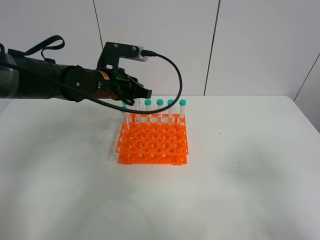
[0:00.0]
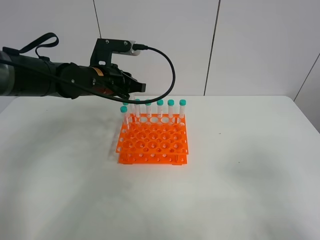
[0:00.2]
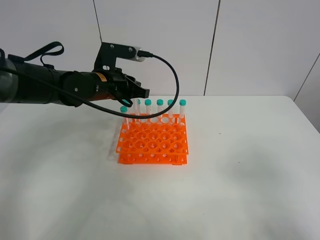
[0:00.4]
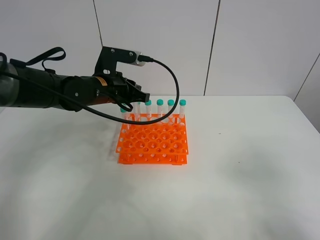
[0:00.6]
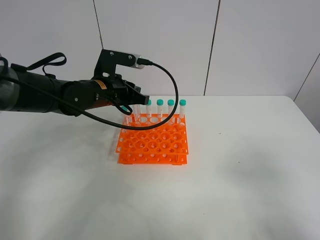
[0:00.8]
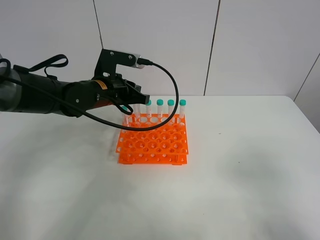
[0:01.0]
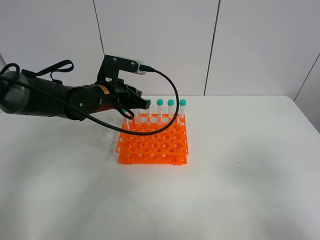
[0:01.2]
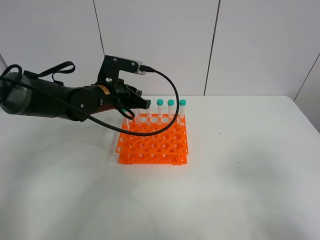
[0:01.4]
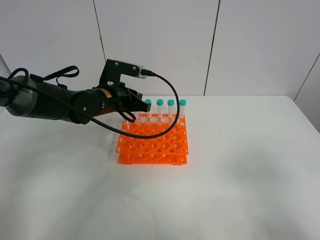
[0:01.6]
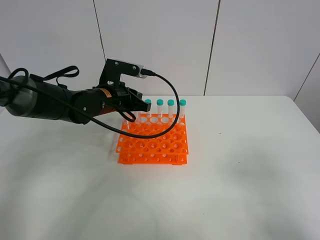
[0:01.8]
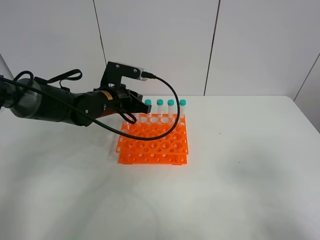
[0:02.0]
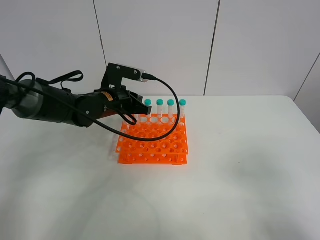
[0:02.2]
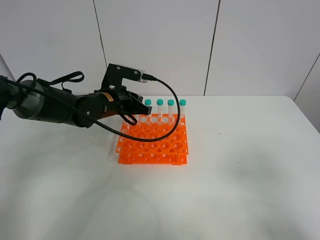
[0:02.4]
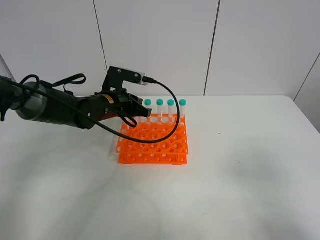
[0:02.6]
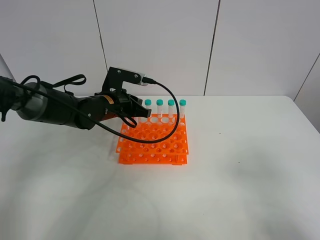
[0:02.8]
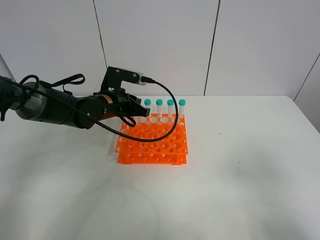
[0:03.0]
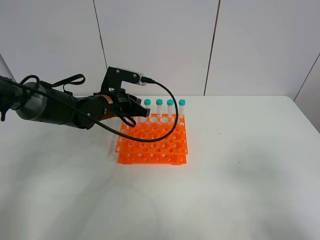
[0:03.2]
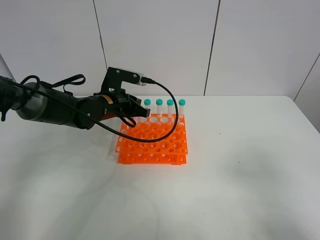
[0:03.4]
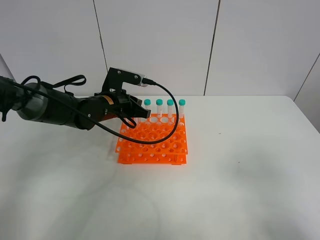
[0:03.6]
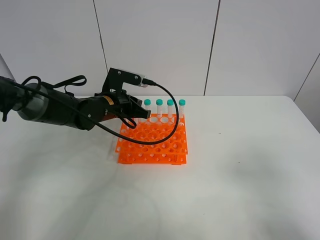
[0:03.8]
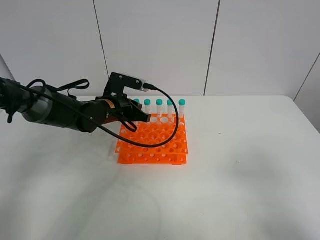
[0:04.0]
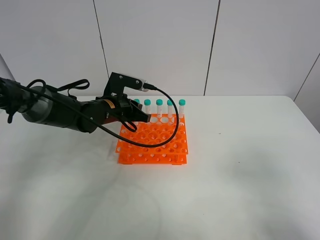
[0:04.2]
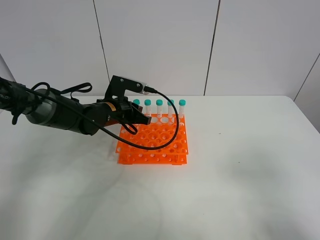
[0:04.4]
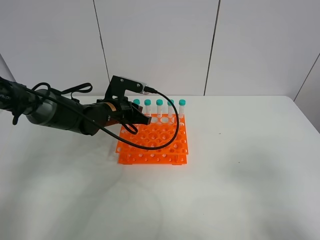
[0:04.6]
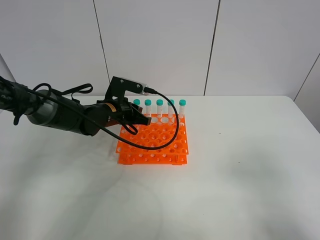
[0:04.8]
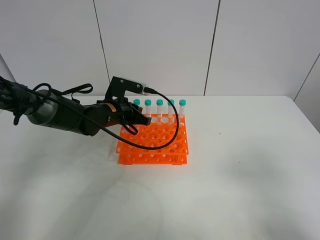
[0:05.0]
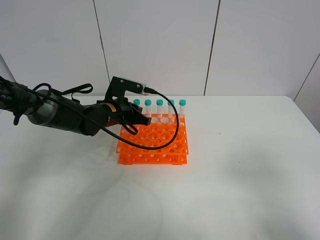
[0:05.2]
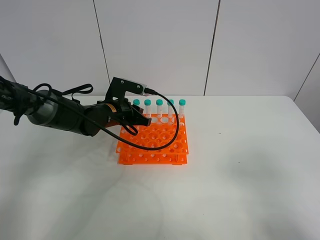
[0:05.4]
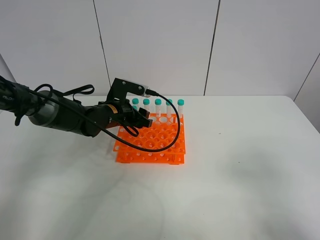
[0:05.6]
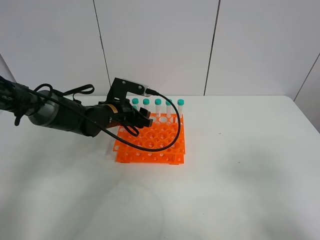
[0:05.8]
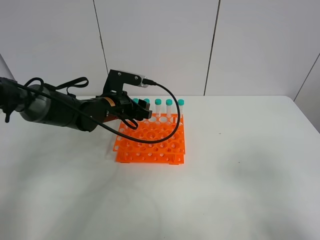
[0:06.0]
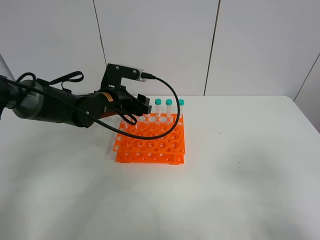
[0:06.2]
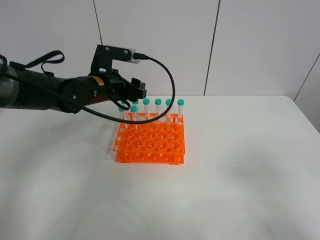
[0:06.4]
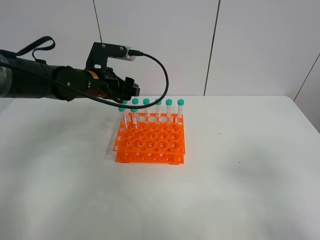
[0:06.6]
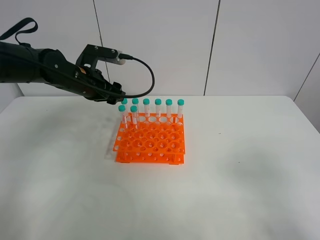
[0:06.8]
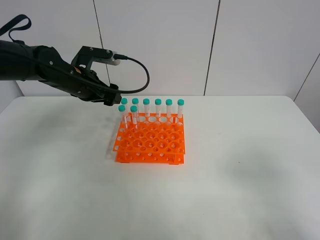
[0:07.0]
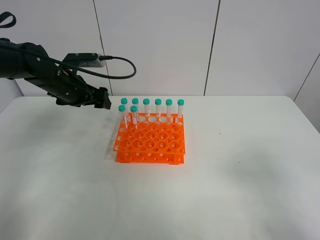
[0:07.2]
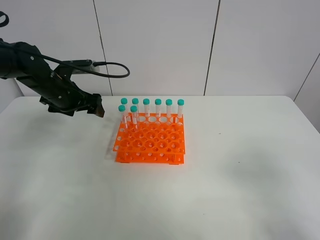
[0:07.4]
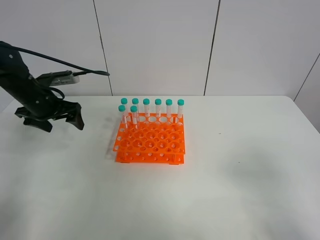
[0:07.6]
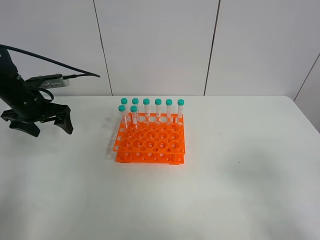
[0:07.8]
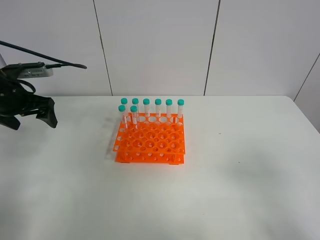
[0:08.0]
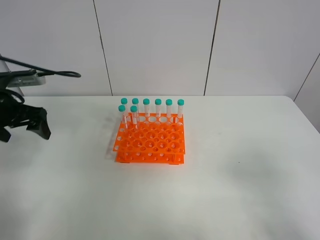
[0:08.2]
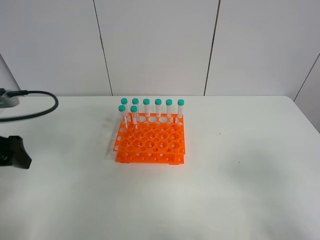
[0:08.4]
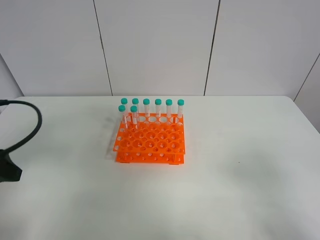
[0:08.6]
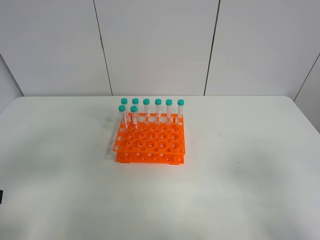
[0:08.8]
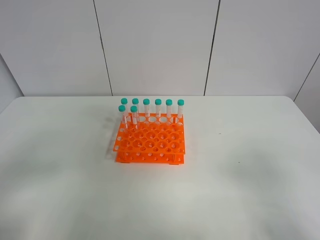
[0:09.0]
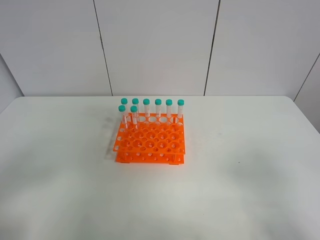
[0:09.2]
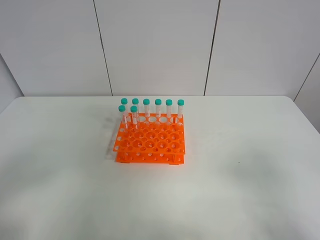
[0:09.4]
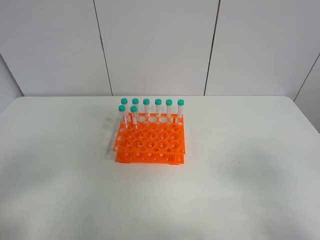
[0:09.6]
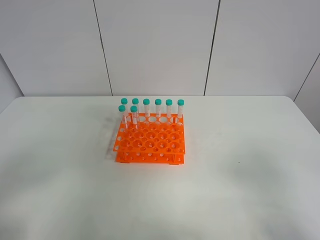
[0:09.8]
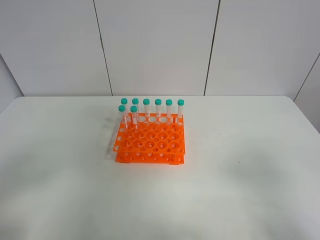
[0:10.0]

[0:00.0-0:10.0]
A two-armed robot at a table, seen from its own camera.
Task of the whole recording: Put the test tube on the table back onto the test tube rack.
Step, 0:00.0 to 0:07.2: Place the test tube on the test tube rack with the left gripper.
0:00.0 to 0:01.4: There are only small adjustments of the grippers.
0:01.4 to 0:04.2: The grippers stay close to where they were, moving slightly.
0:04.2 to 0:05.8: The left gripper opens up.
0:05.8 to 0:07.2: The left gripper shifts roughly 15 cm to the left and upward.
0:07.2 to 0:08.6: The left gripper travels backward by about 25 cm.
0:08.6 to 0:10.0: The left gripper is displaced backward by some 15 cm.
